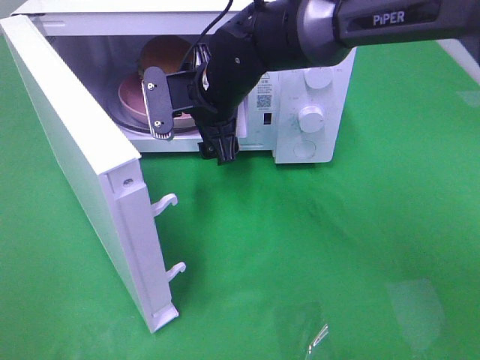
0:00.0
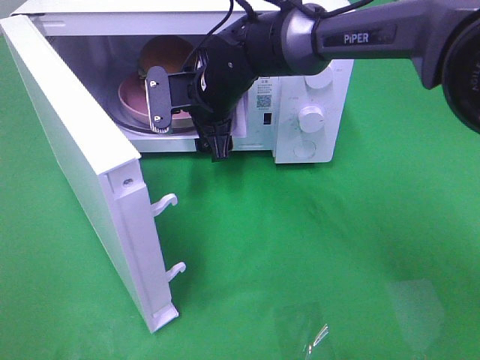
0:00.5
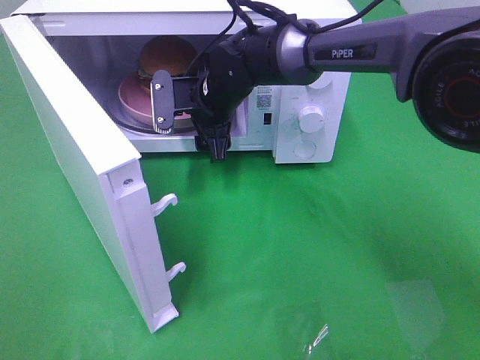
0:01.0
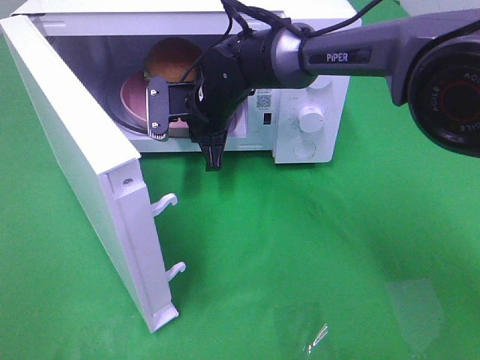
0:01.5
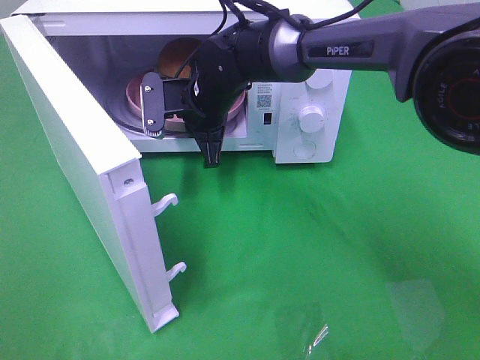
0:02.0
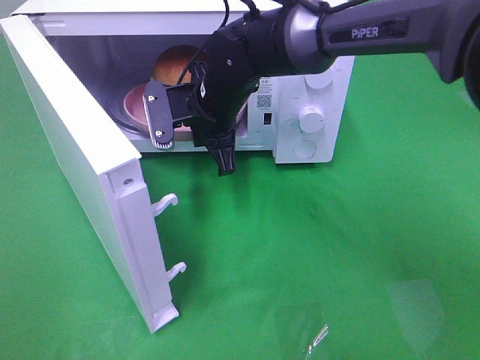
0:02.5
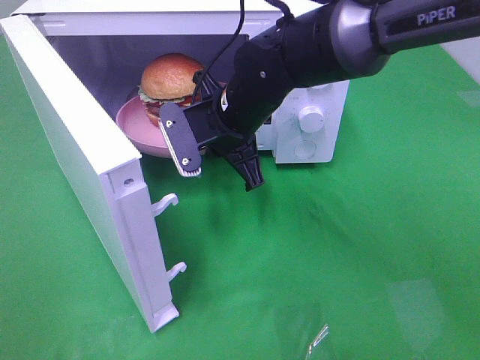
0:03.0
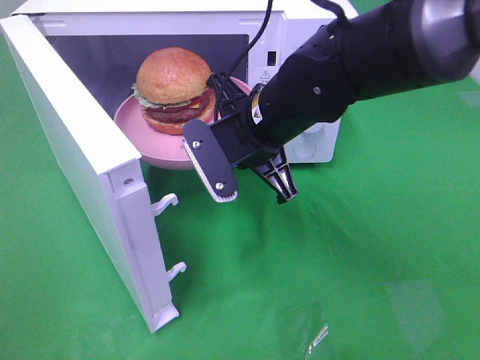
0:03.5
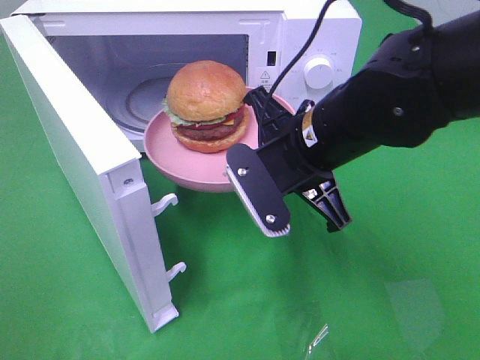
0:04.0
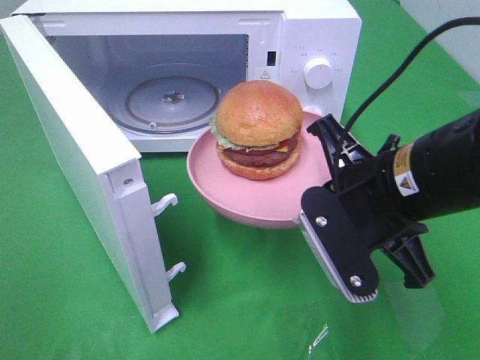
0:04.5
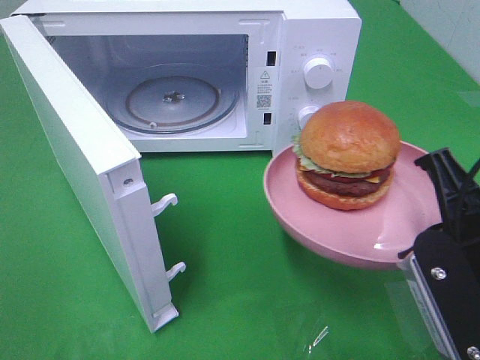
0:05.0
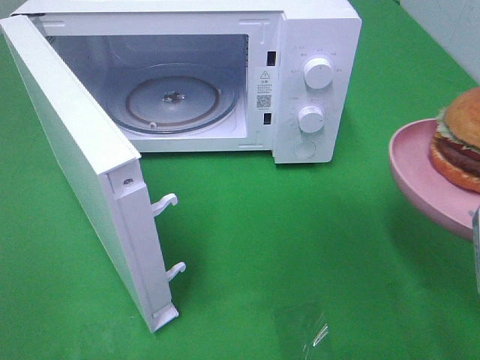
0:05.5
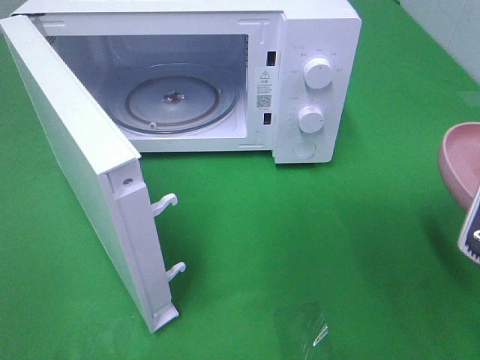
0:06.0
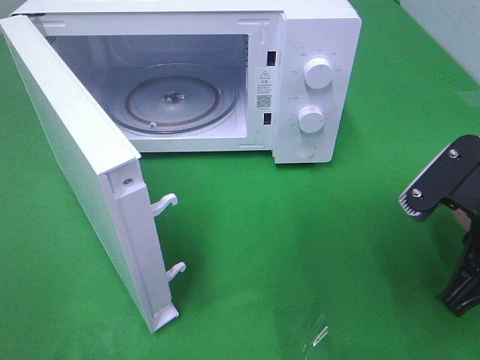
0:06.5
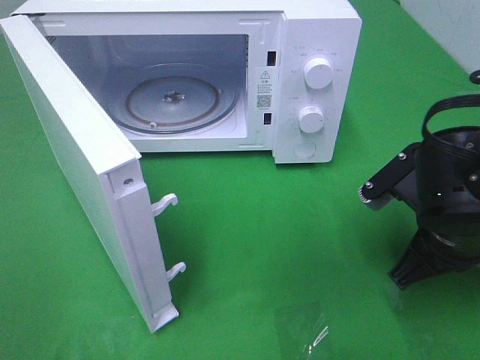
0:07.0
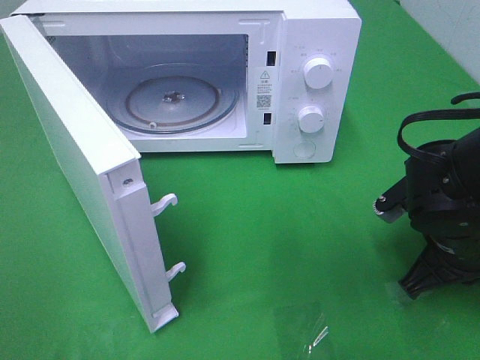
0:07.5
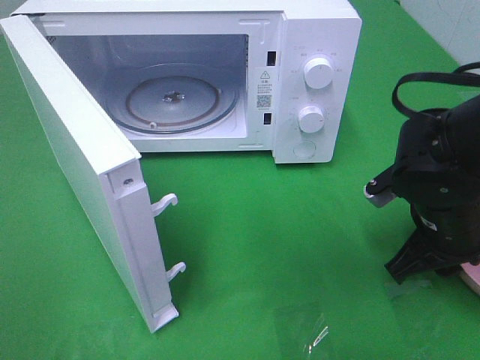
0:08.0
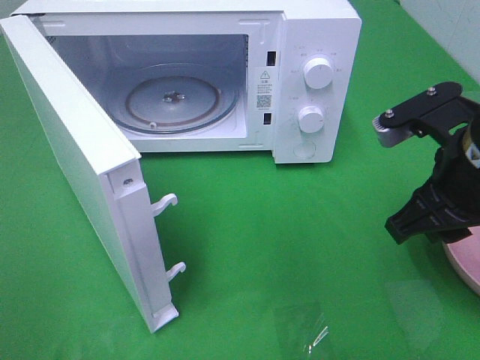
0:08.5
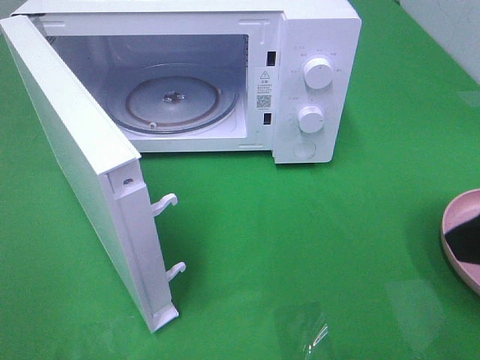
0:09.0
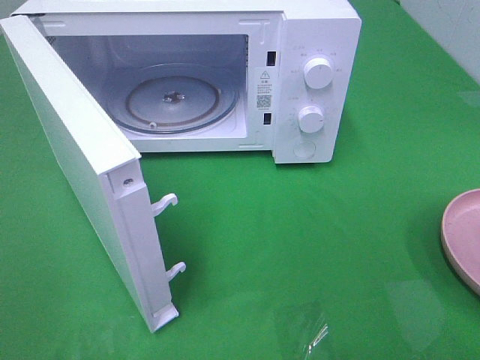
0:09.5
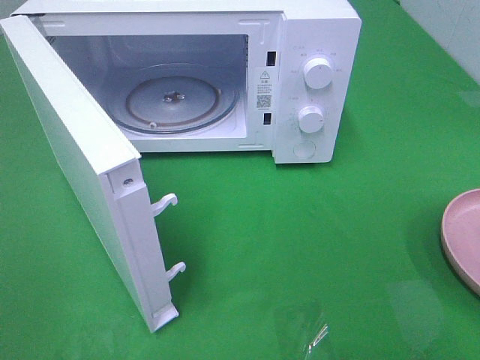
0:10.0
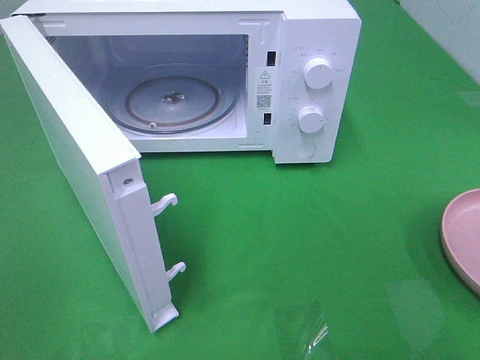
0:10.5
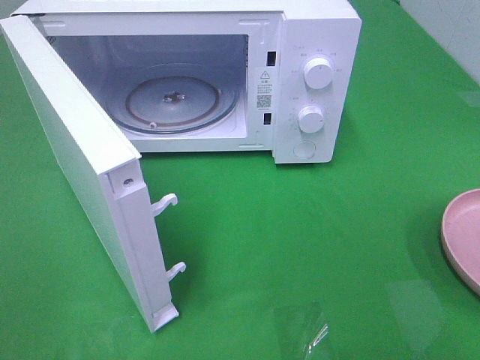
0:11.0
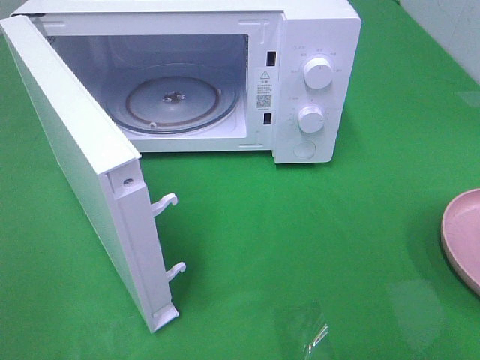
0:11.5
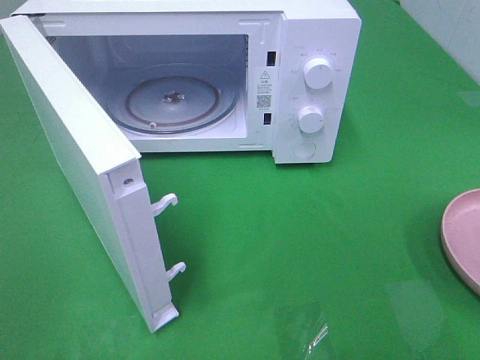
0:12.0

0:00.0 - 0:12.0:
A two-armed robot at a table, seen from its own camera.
Task of the whole recording: Heat the burger.
Step, 0:02.0 - 0:08.0: Right hand: place the plate on the table.
0:00.0 - 0:02.0: The right gripper closes.
0:02.0 - 0:04.0: The right gripper is displaced backward and to the right by some 20 cm.
0:04.0 - 0:06.0: The right gripper goes some 20 cm to the right and backward.
0:06.0 - 0:08.0: The right gripper goes approximately 15 cm forward and downward, and opens.
0:08.0 - 0:10.0: The right gripper heads backward and upward, covering some 25 cm, and opens its fingers.

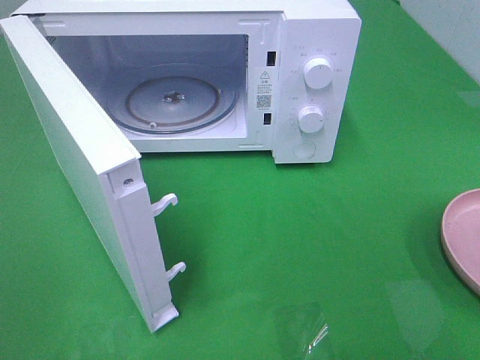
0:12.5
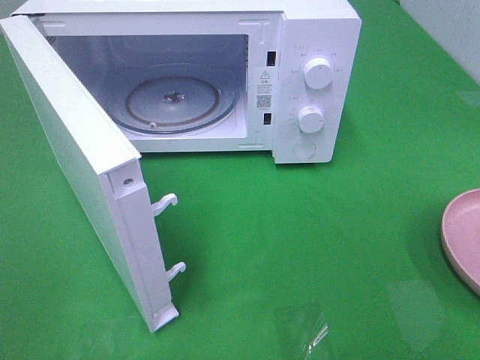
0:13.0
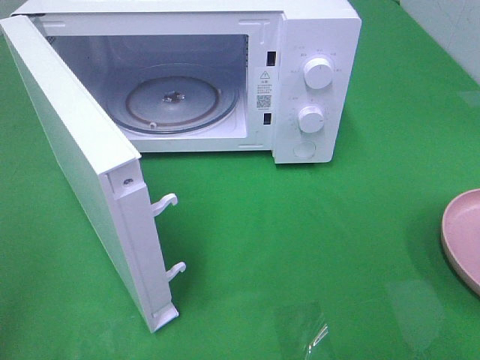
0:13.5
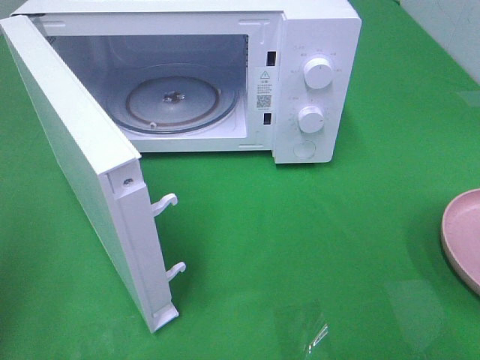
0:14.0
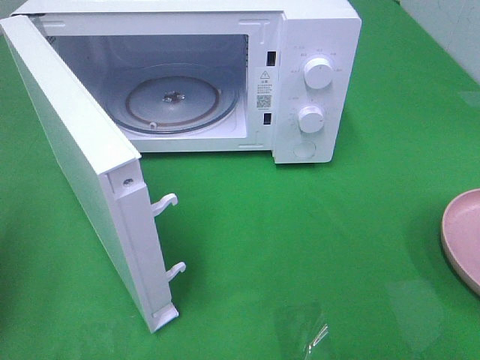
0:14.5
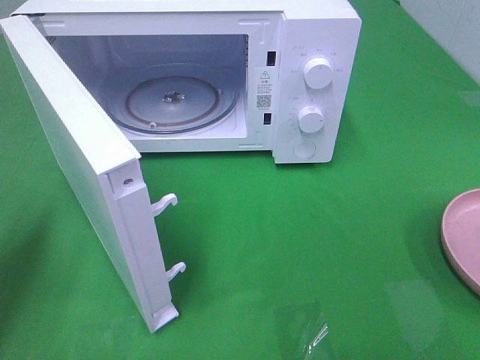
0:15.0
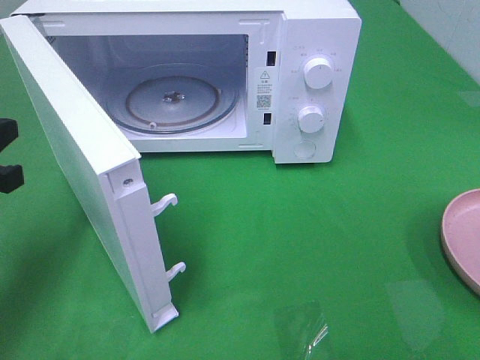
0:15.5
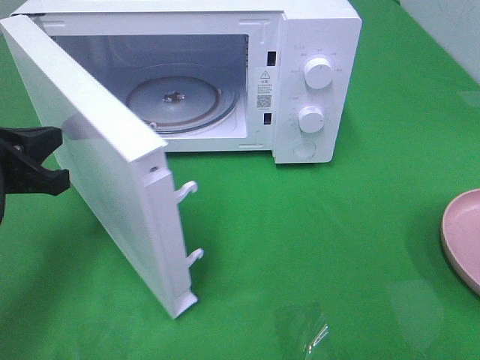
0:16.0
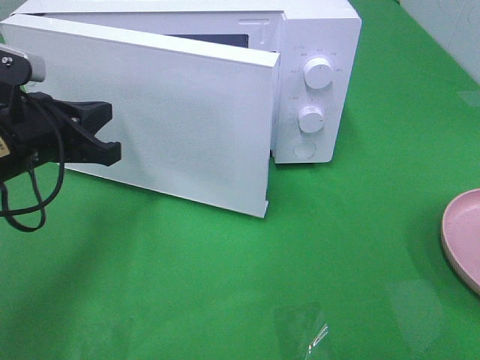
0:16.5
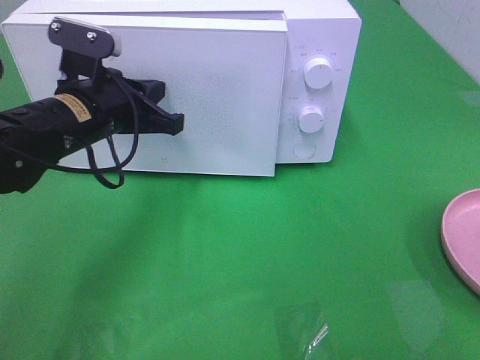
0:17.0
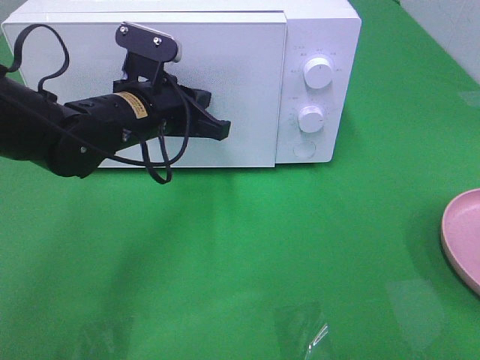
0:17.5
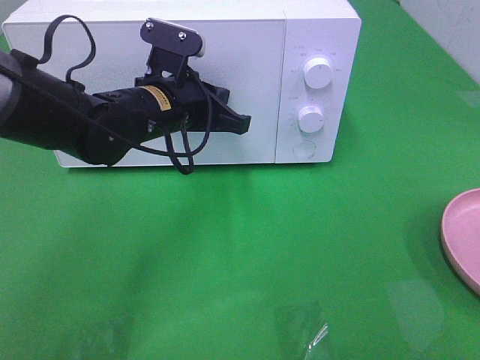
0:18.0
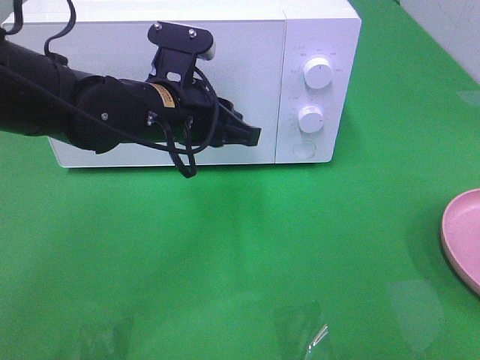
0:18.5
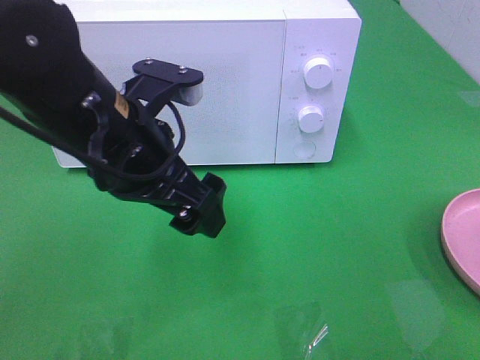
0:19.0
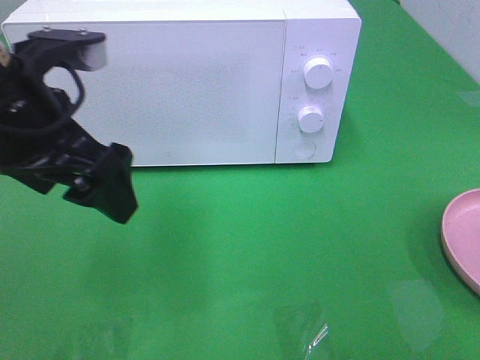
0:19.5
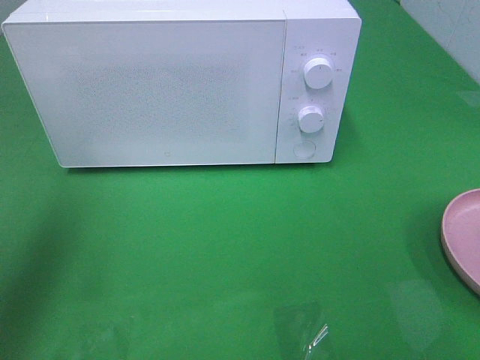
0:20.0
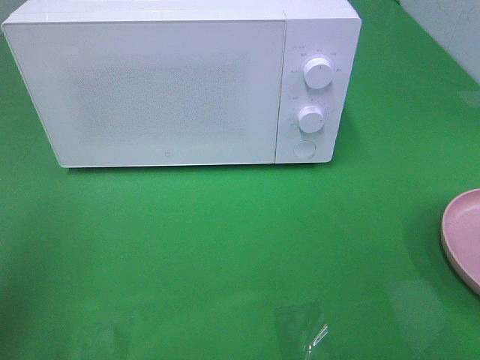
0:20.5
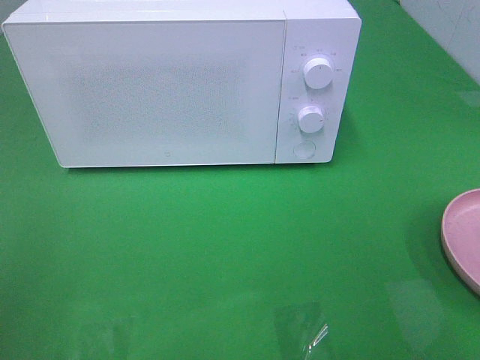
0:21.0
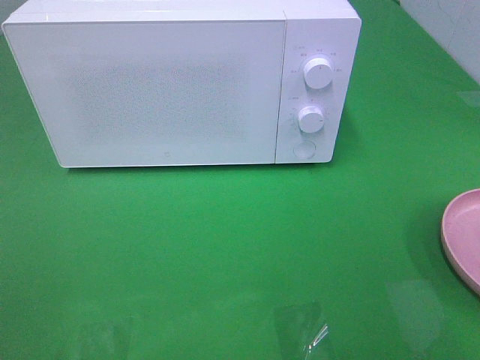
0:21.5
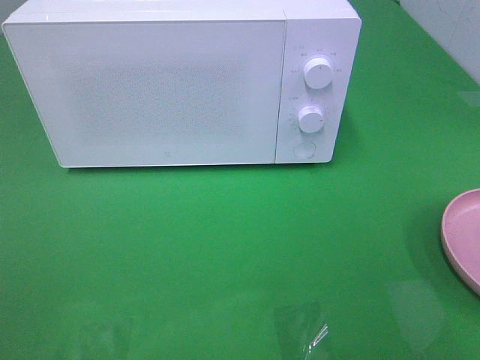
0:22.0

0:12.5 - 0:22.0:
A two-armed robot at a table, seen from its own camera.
Task of the whole recording: Heat the burger.
Step, 0:12.5 - 0:18.0: Left hand: close the microwave door.
0:12.5 - 0:14.5: The left gripper is displaced forward by roughly 15 cm, and closes up.
0:14.5 - 0:16.5: The left gripper moves to the right, forward and downward, approximately 20 cm.
0:16.5 - 0:18.0: The left gripper travels to the right and forward by approximately 15 cm.
0:18.0 - 0:20.0: The left gripper is displaced to the left, upward and backward by about 30 cm, and opens up.
0:20.0 - 0:22.0: The left gripper goes approximately 25 cm backward.

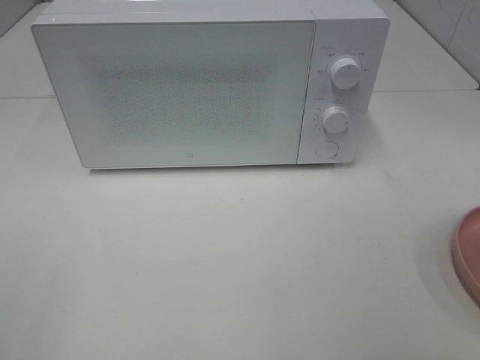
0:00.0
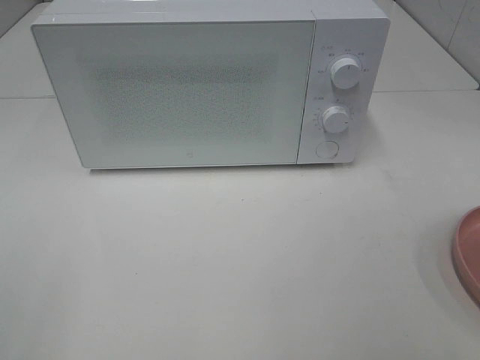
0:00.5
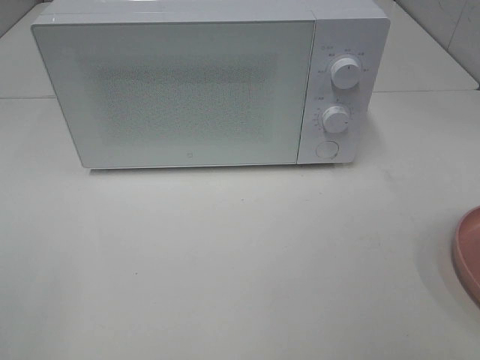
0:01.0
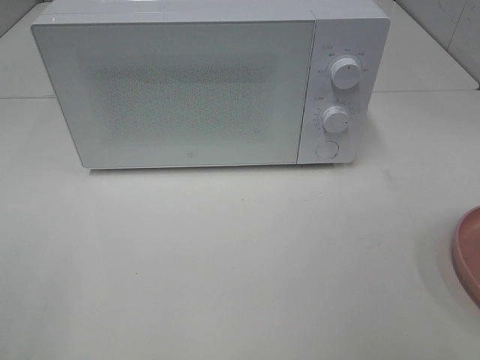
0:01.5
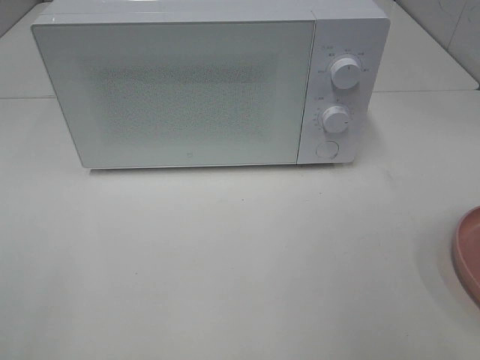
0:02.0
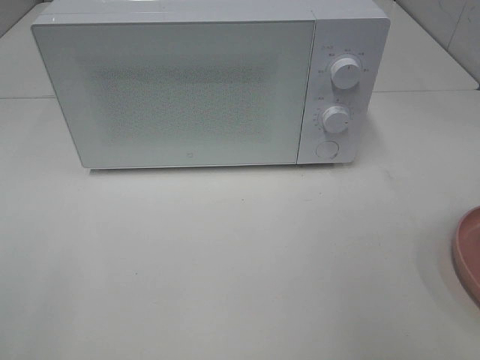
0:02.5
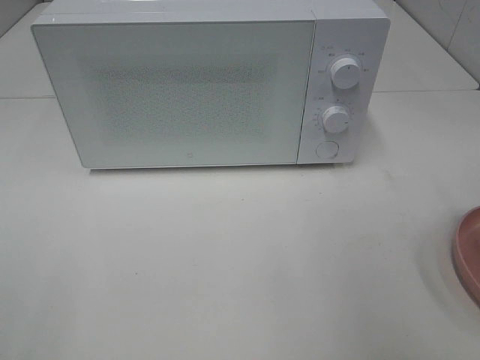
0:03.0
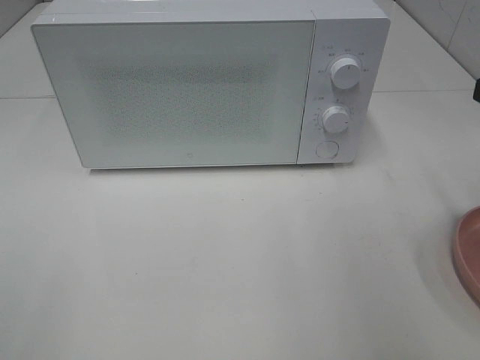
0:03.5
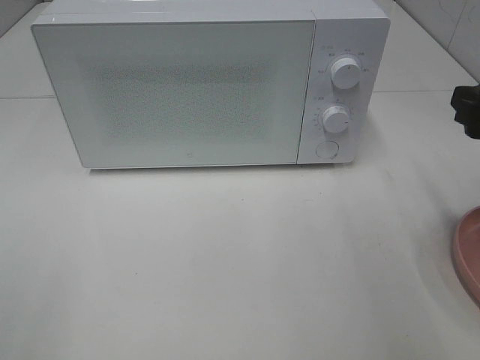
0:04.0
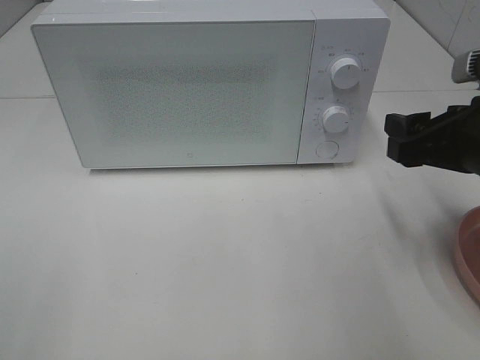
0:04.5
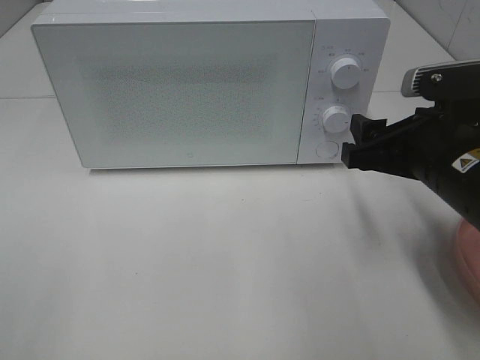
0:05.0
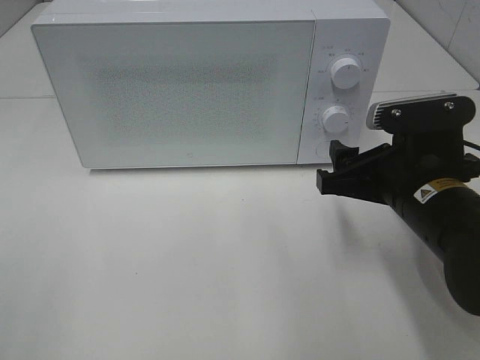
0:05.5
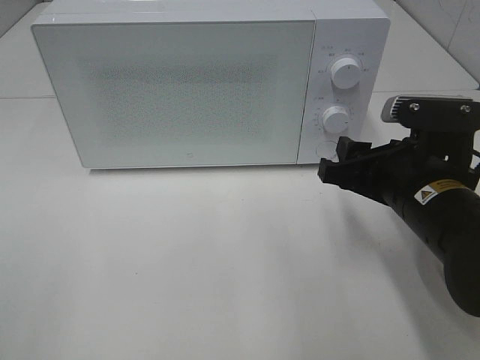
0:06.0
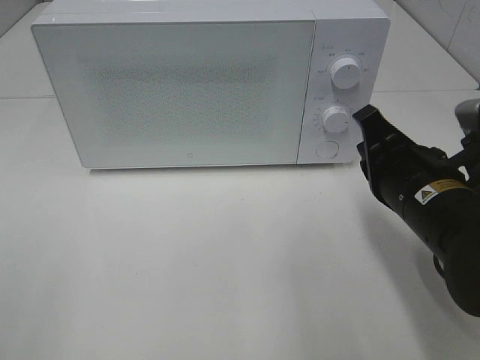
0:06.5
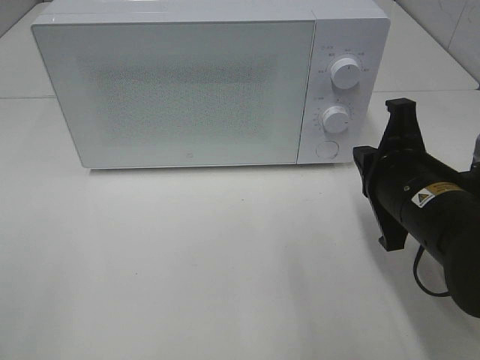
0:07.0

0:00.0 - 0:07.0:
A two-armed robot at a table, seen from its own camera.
Task of the whole recording: Heat the burger.
0:03.5 - 0:05.0: The right gripper shifts roughly 15 cm to the left and downward.
0:05.0 - 0:07.0: The right gripper closes its fingers.
